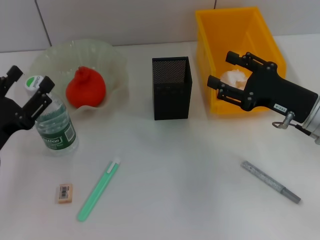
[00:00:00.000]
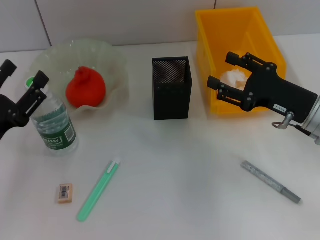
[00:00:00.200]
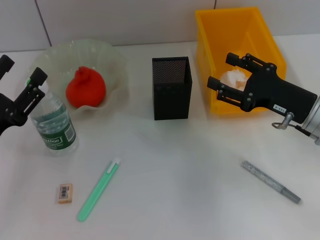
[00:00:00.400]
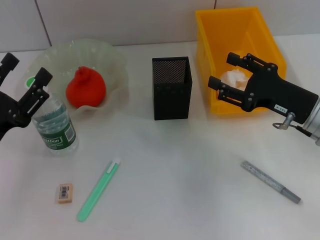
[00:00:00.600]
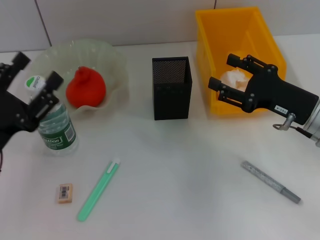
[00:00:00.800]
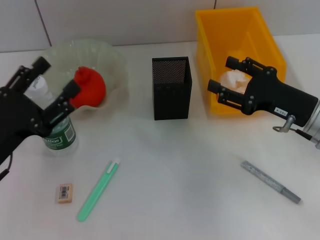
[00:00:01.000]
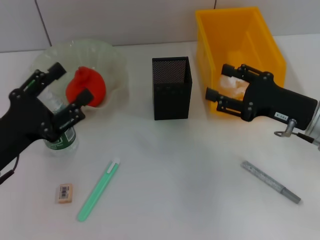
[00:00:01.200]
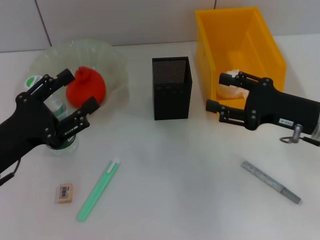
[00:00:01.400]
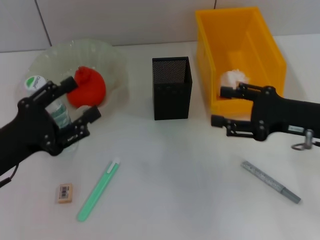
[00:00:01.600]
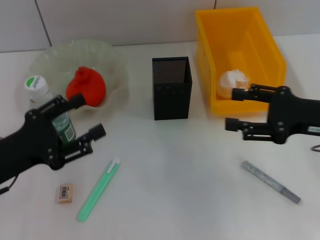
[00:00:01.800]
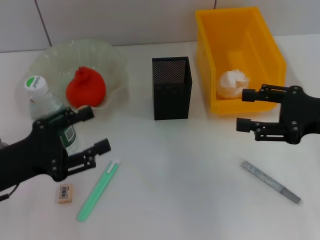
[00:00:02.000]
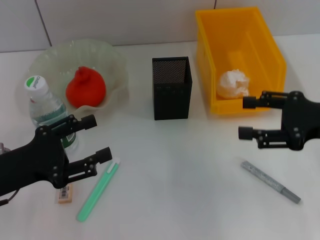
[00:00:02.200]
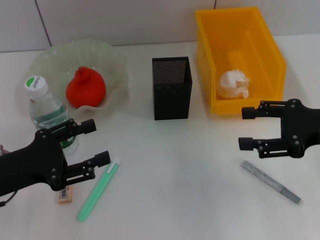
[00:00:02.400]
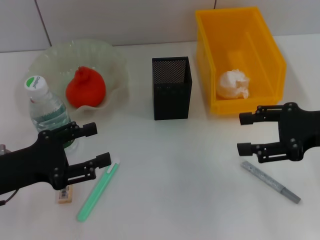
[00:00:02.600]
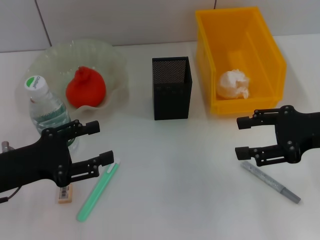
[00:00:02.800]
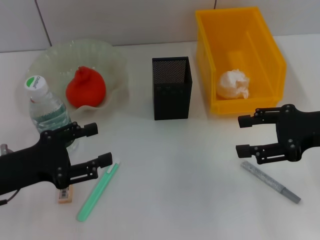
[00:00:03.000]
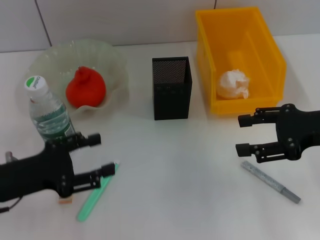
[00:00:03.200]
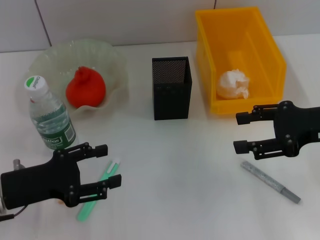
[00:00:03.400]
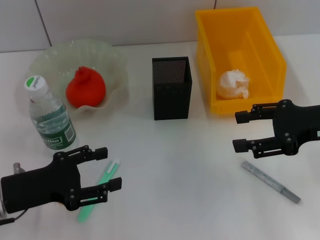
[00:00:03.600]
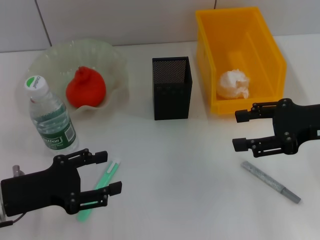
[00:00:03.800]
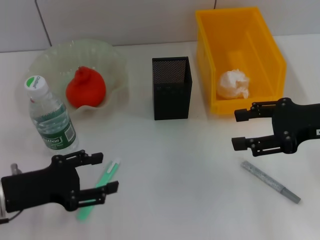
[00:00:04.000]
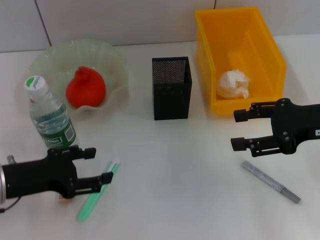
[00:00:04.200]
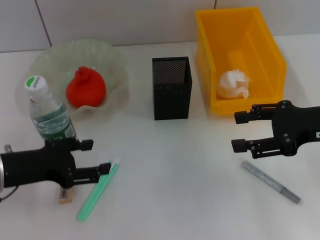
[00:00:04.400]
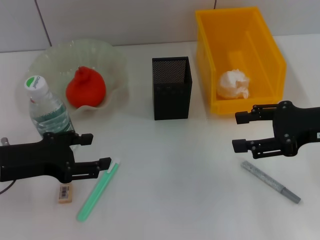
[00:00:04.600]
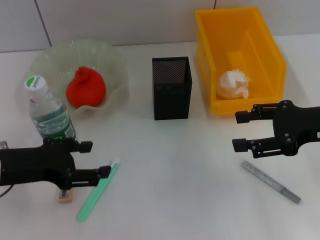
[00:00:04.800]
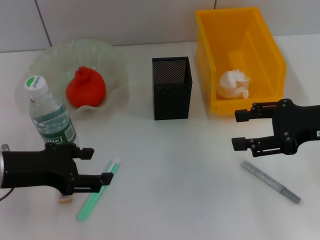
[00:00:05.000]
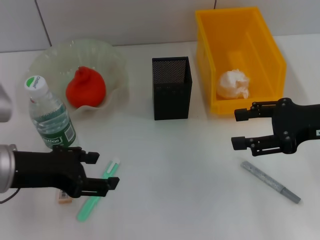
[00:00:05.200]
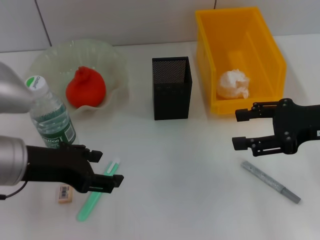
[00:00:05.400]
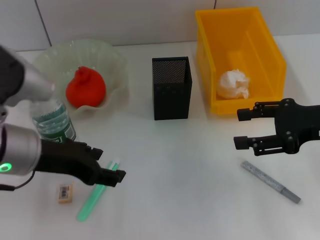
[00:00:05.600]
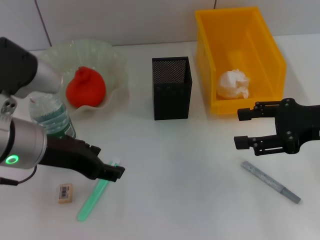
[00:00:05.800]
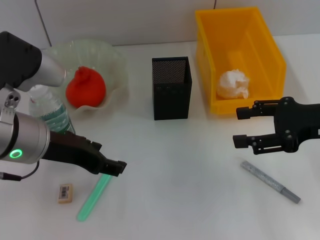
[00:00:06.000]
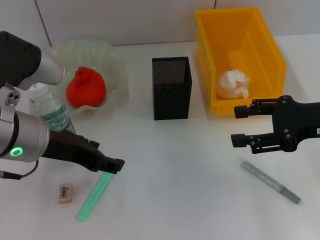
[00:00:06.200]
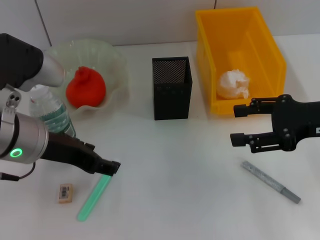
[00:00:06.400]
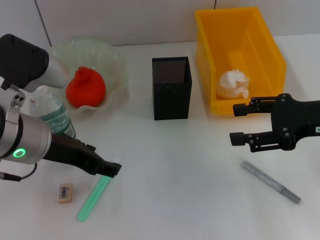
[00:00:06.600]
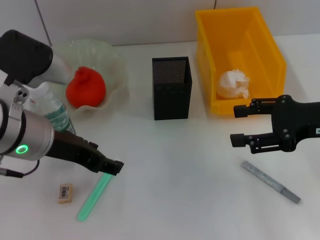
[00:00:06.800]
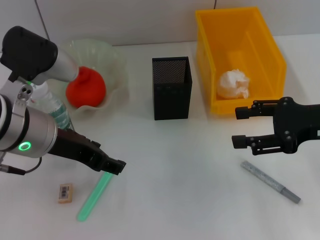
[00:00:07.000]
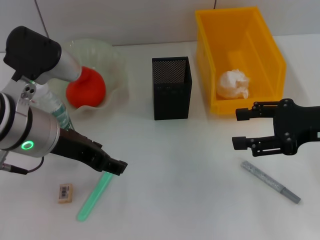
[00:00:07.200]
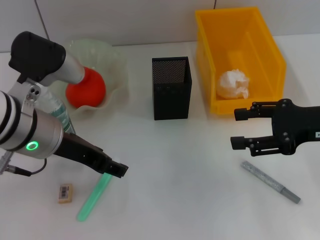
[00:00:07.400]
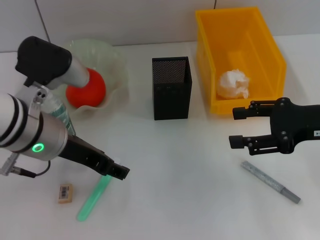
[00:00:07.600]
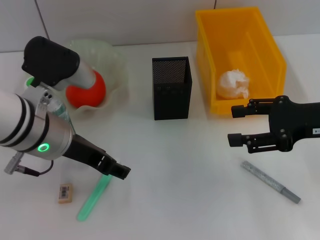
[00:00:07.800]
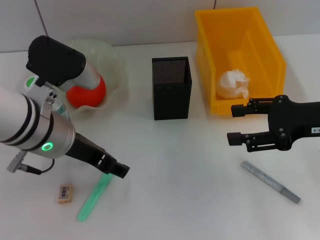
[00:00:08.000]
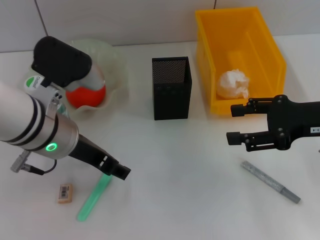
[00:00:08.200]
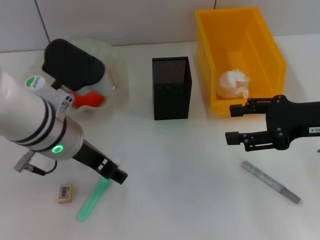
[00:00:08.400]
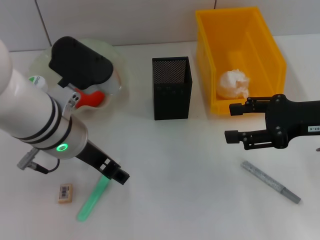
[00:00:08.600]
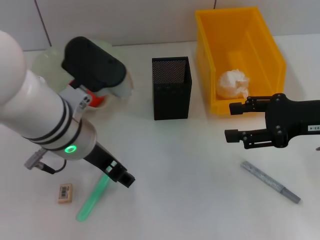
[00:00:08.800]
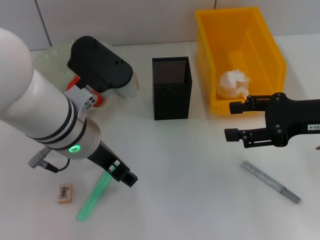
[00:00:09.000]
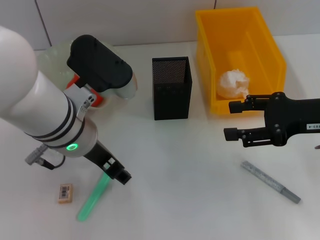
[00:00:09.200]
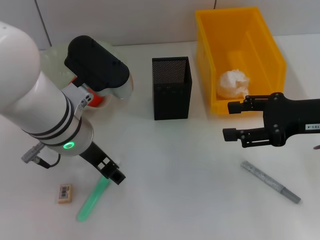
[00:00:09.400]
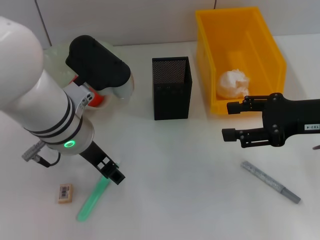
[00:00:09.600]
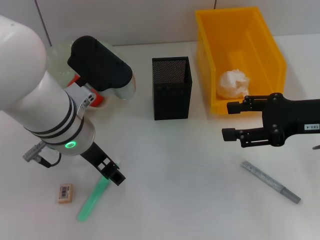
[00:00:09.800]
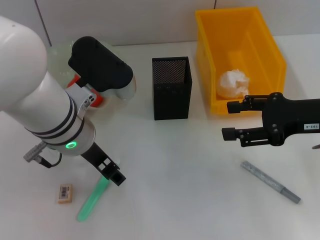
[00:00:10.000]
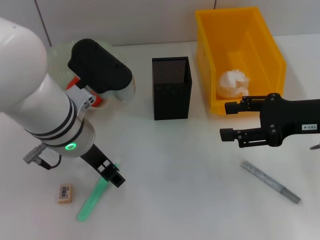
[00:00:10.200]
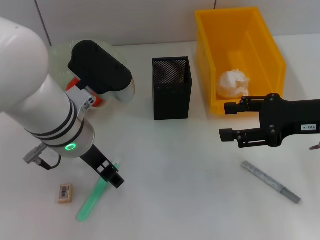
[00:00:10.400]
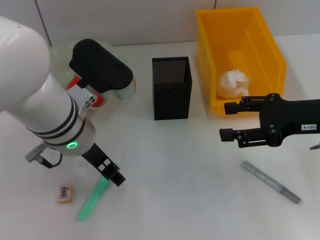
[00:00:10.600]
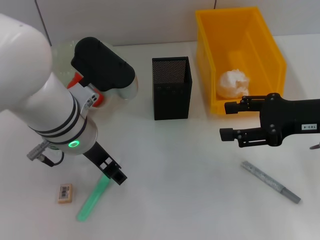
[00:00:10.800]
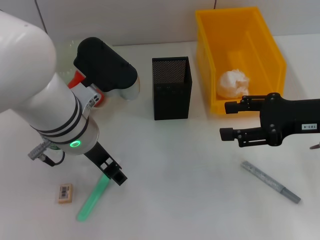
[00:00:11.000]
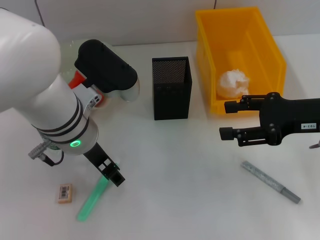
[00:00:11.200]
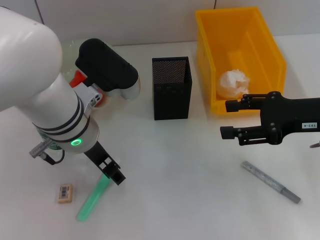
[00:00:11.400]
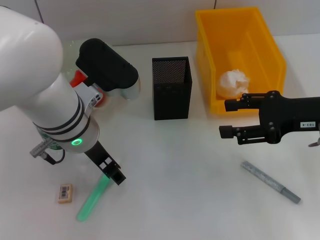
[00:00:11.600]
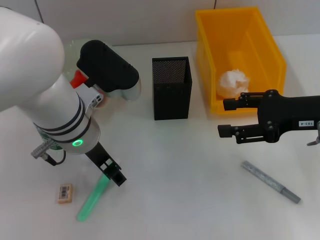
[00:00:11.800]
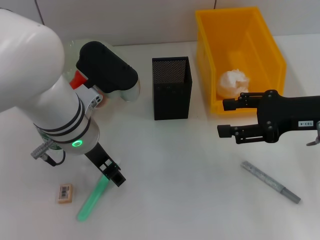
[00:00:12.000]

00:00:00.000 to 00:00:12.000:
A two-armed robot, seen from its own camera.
00:00:04.400 to 00:00:06.000: The left gripper travels to the right and upward by about 10 cm.
00:00:06.000 to 00:00:07.600: There are only small adjustments of the grippers.
00:00:07.600 to 00:00:10.400: There are only small adjustments of the grippers.
00:00:10.400 to 00:00:12.000: Both grippers stay put.

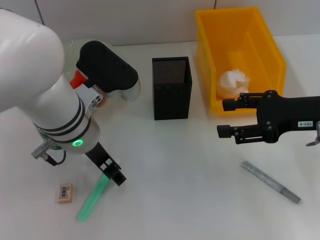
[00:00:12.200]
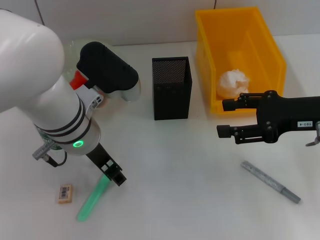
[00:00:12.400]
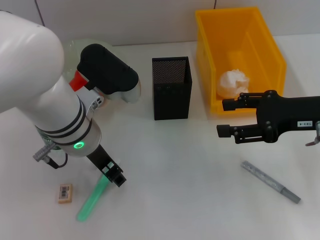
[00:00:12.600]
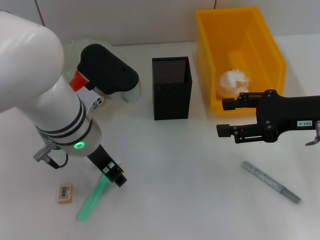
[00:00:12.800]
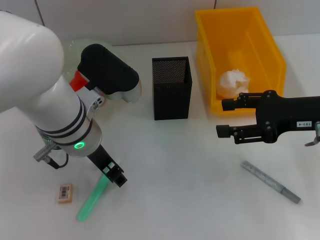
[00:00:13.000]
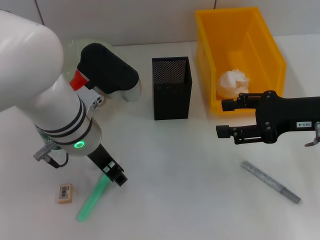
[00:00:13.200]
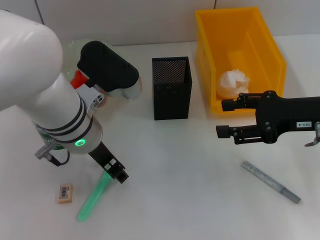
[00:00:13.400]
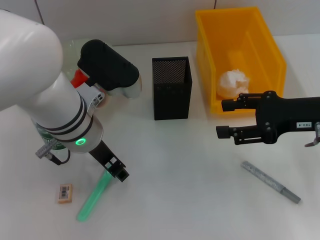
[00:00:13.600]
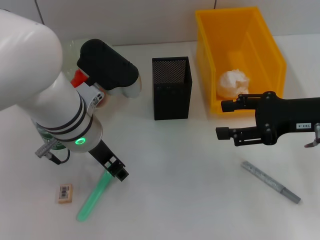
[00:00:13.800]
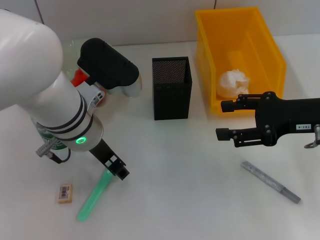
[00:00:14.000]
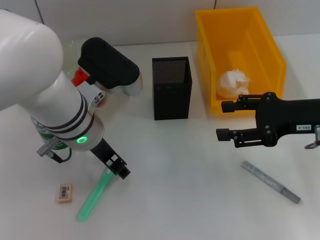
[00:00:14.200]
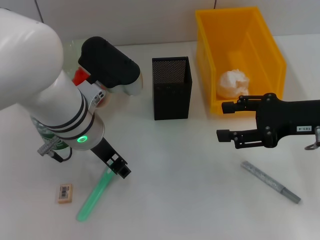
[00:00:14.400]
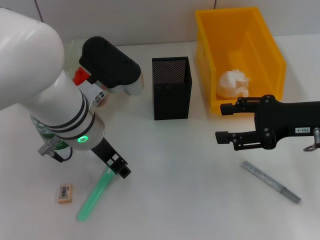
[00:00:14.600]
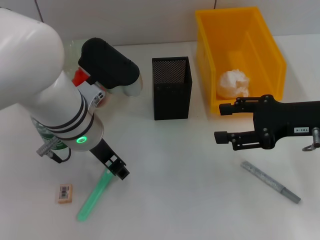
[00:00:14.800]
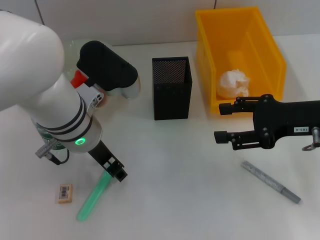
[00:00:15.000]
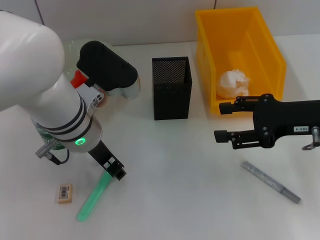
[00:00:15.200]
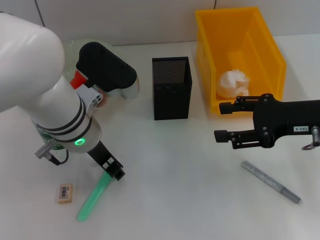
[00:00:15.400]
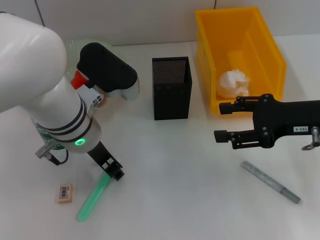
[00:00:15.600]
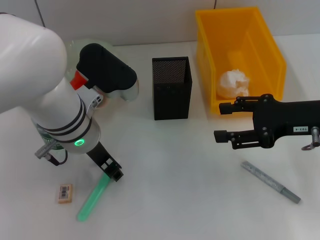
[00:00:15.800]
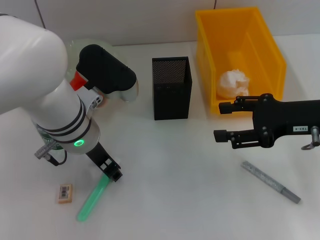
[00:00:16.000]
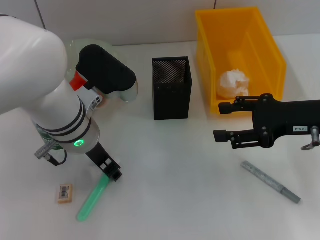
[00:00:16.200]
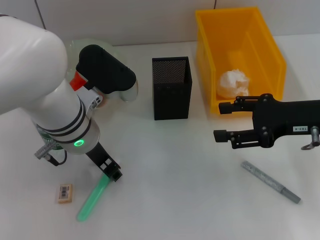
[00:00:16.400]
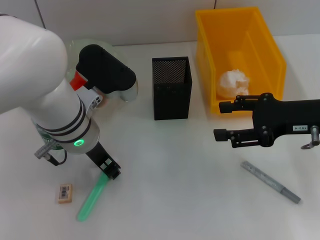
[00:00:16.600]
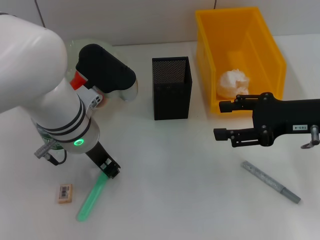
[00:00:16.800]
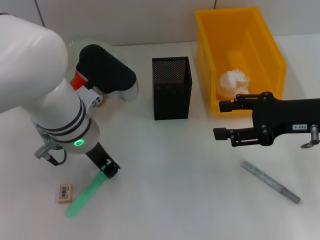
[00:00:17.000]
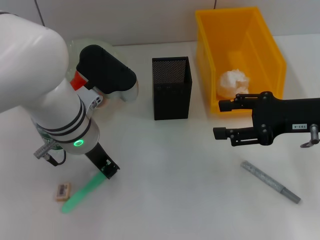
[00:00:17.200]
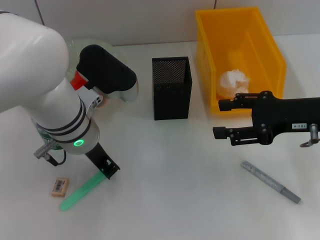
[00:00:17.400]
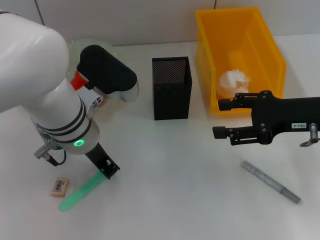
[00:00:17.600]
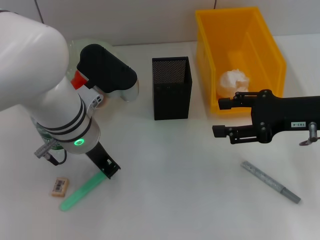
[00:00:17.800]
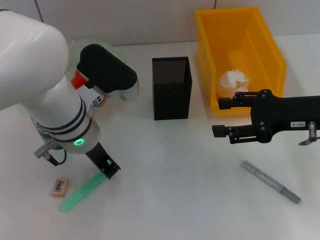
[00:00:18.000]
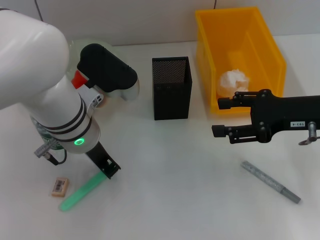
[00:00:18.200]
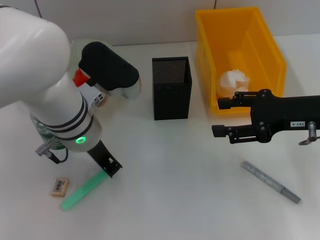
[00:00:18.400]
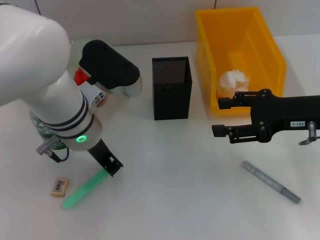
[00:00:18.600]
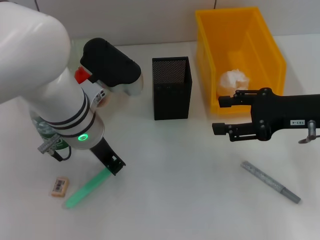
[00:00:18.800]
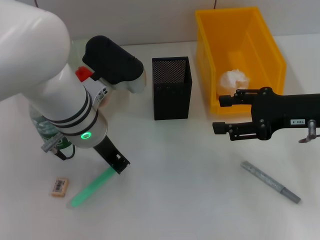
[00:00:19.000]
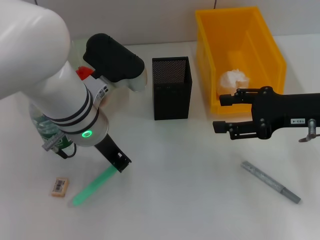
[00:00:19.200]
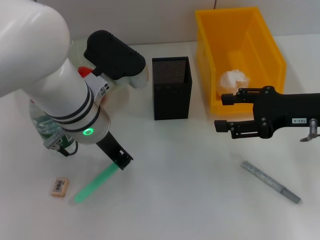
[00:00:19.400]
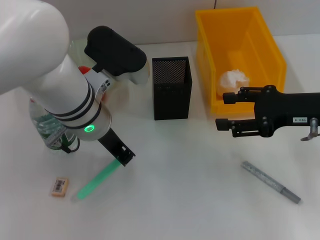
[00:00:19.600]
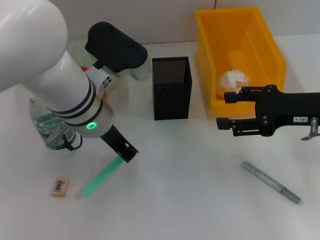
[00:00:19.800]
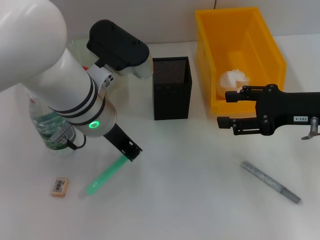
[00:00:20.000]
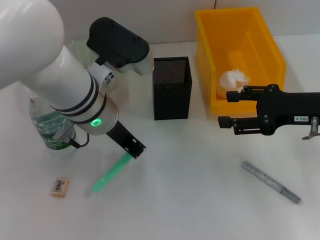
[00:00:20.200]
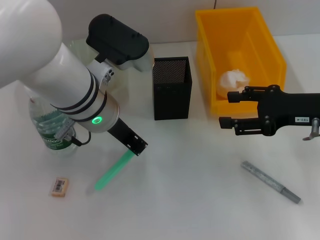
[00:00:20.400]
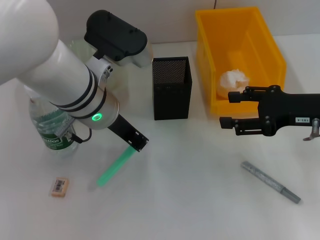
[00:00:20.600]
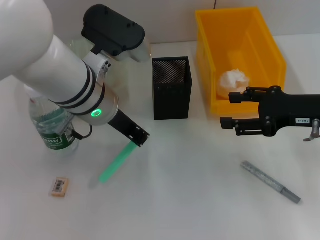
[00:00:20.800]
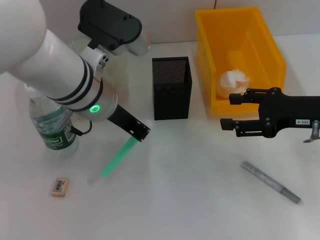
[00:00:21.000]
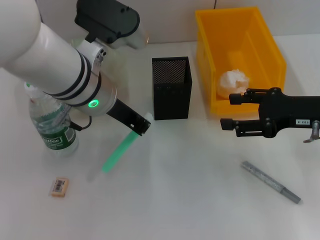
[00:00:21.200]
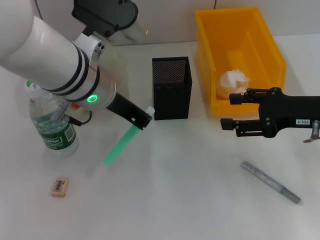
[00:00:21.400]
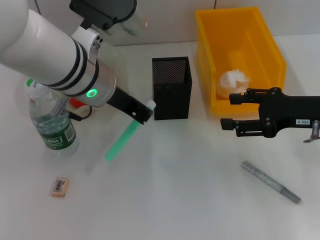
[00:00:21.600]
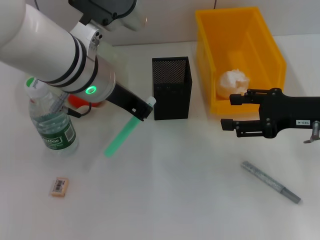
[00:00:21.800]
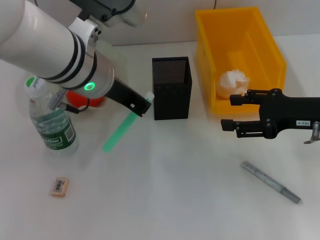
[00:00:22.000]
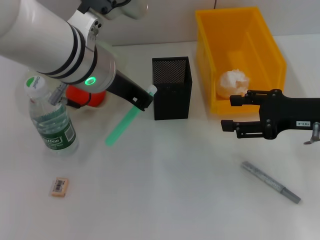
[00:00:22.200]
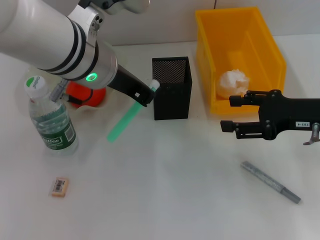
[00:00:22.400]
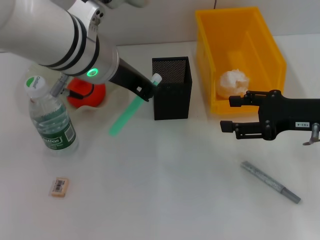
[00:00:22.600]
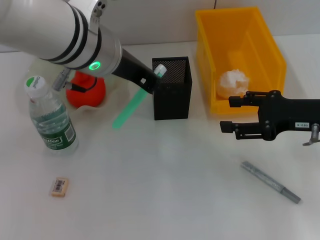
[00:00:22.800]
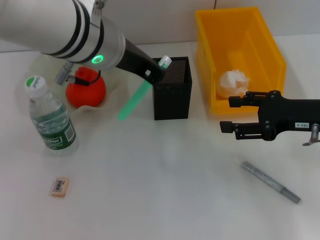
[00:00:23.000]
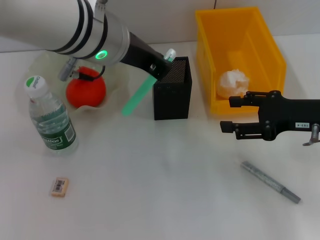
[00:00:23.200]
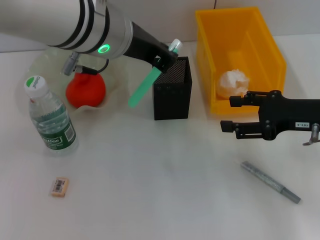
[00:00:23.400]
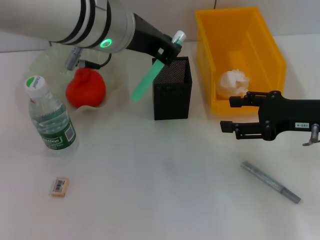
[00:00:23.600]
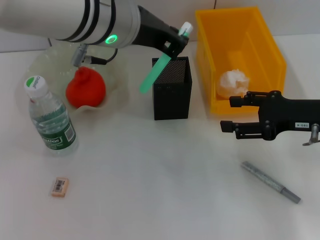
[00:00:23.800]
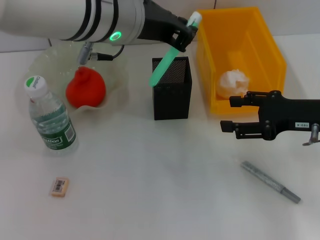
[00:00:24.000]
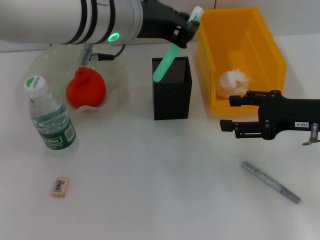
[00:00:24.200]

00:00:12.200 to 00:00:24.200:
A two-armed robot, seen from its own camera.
Step, 00:00:12.200 to 00:00:17.600: Grab the blue utility knife with the left hand.
00:00:12.200 to 00:00:15.200: Both grippers stay put.
00:00:15.200 to 00:00:18.200: The two grippers keep their place.
00:00:18.200 to 00:00:21.200: The grippers make only small movements.
00:00:21.200 to 00:00:22.600: There are only small adjustments of the grippers.
